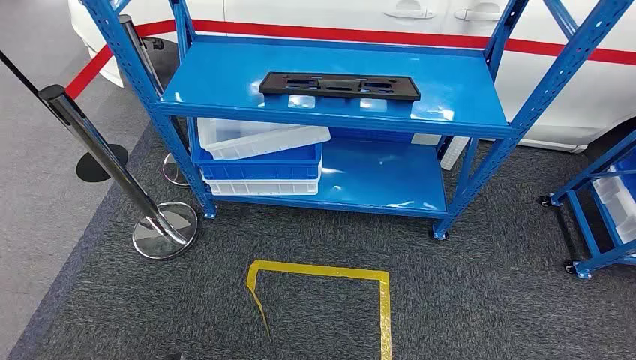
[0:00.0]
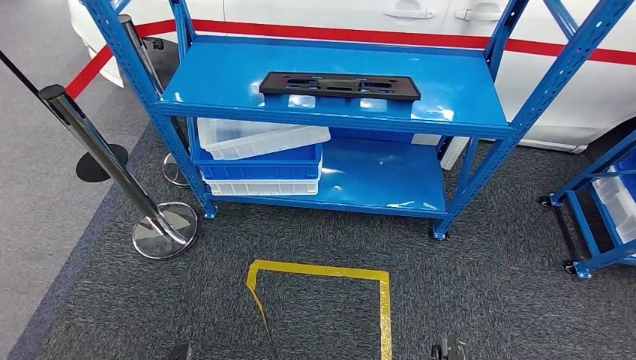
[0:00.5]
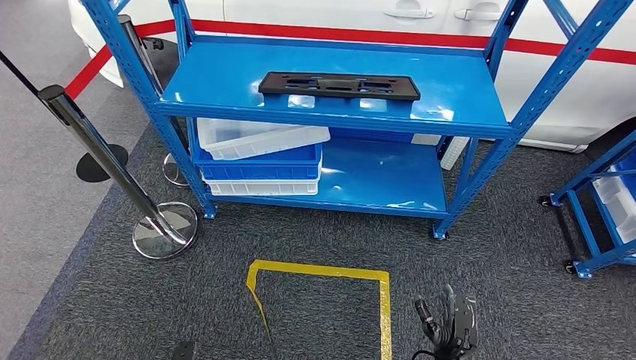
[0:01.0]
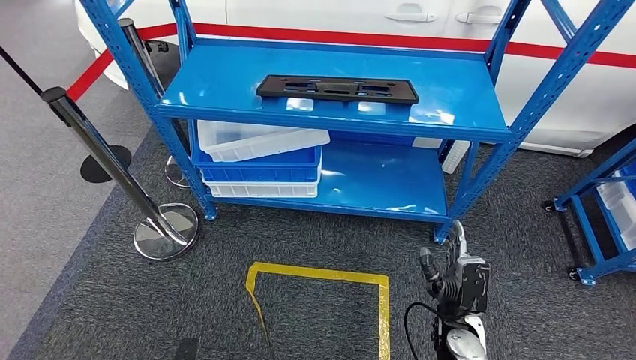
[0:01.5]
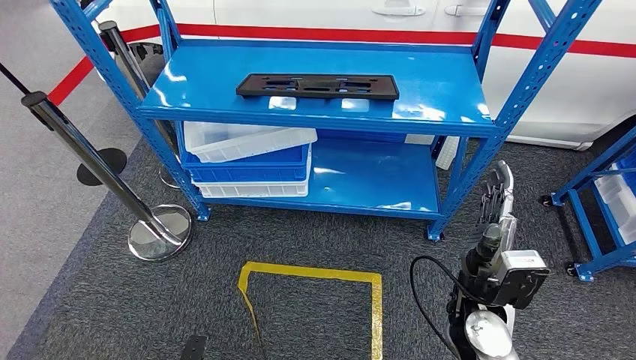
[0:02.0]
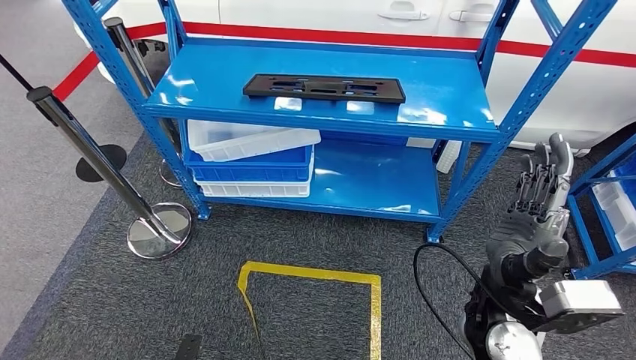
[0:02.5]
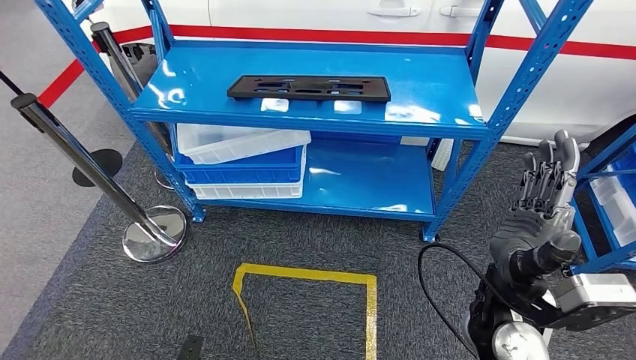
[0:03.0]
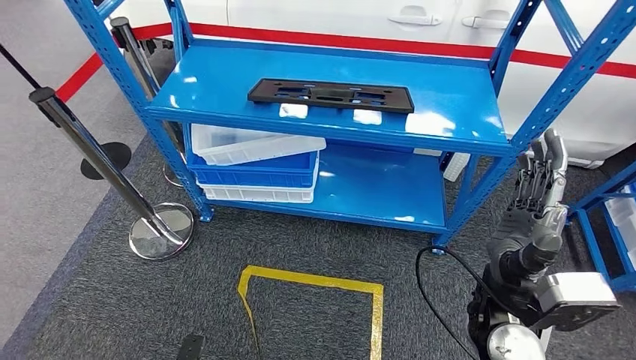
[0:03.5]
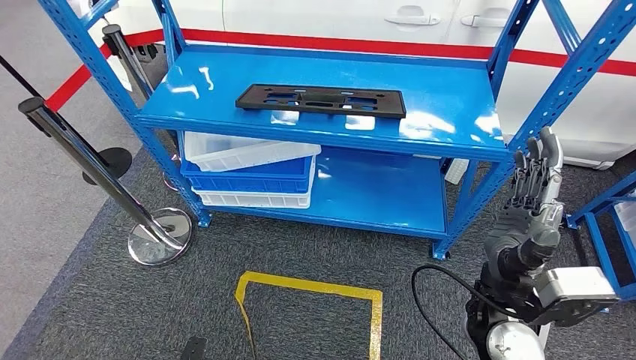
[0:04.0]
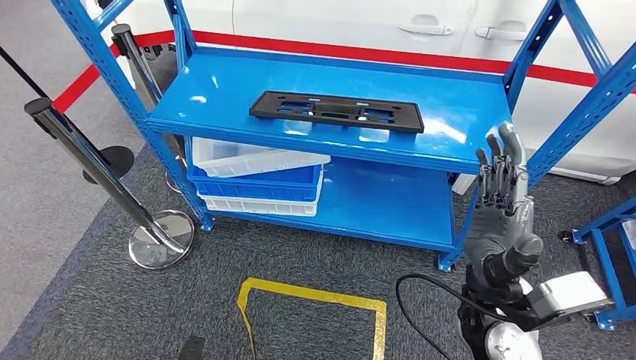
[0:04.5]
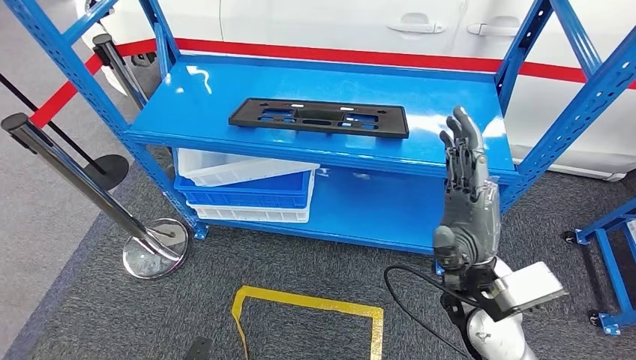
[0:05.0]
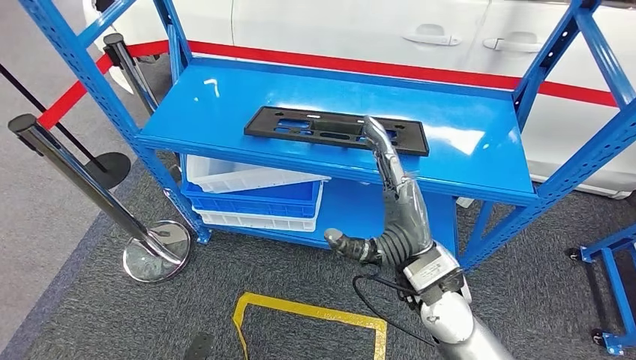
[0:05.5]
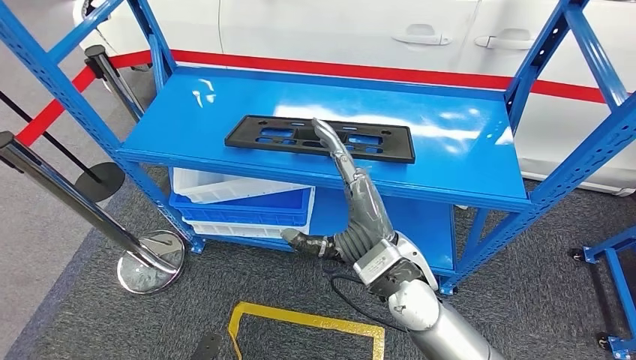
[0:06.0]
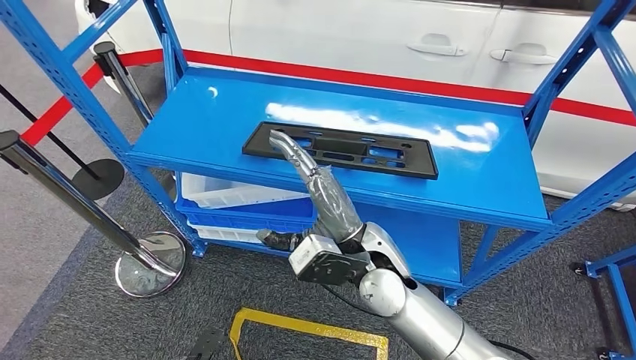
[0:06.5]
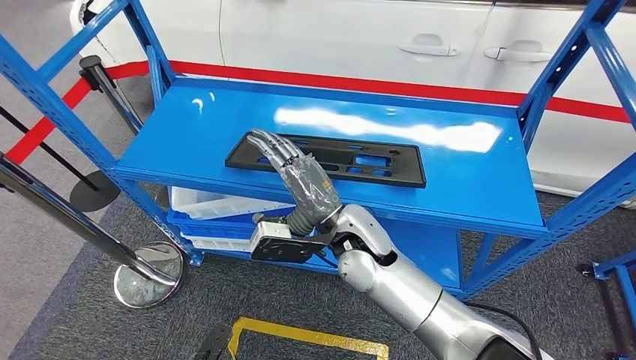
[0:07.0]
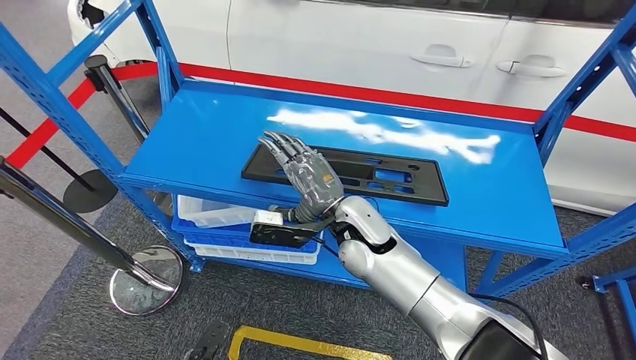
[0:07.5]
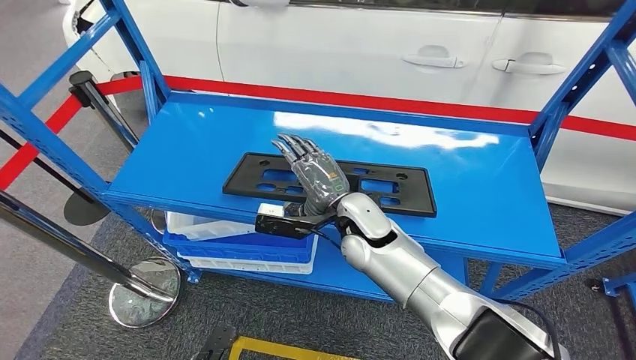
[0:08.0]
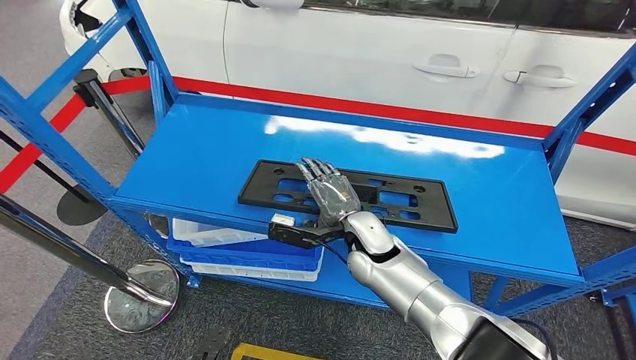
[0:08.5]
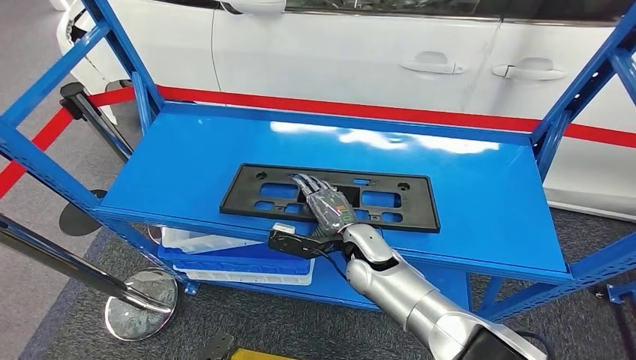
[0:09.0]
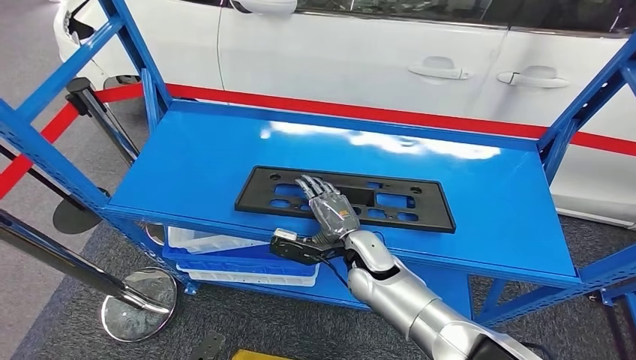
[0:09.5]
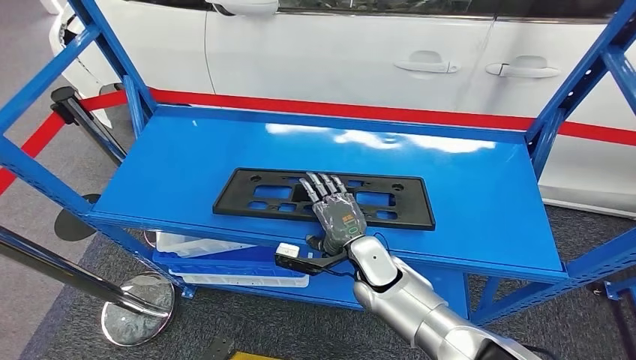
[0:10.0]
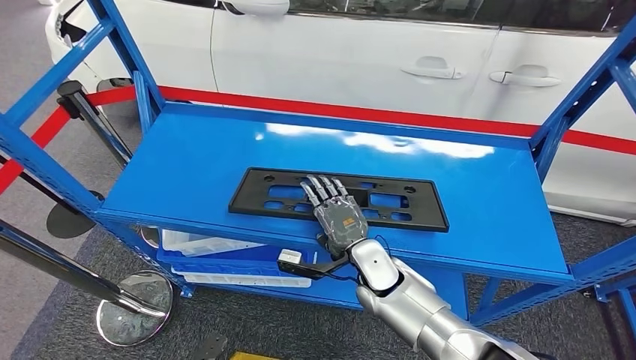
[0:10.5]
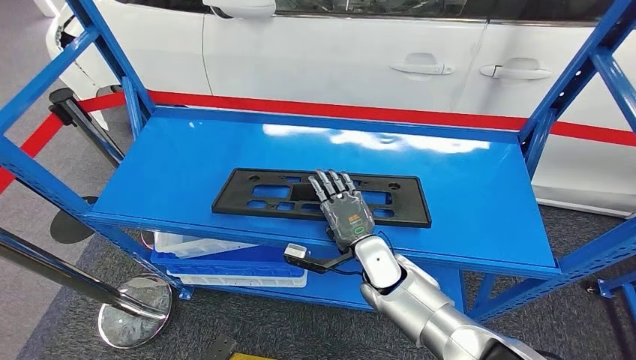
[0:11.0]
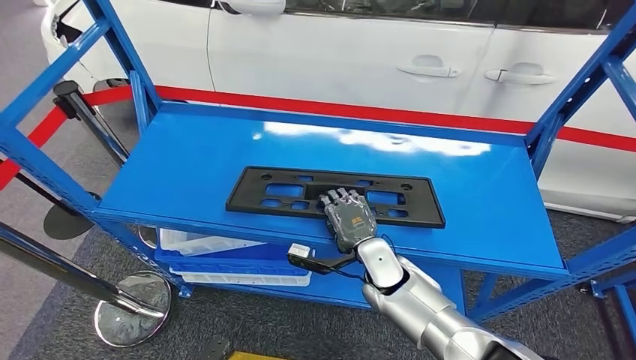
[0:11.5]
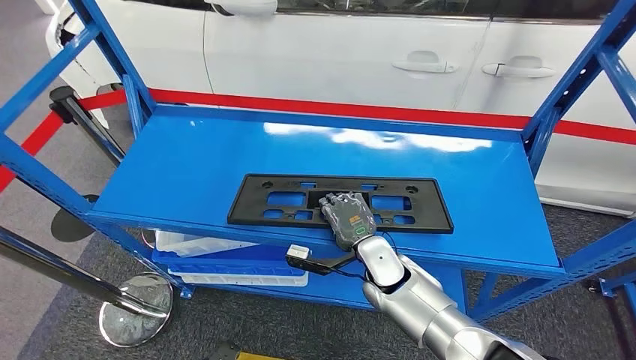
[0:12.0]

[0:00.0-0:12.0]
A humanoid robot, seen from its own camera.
0:10.0 to 0:12.0: The hands make only small movements.

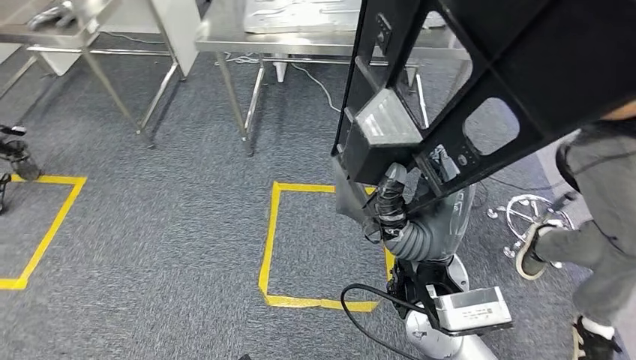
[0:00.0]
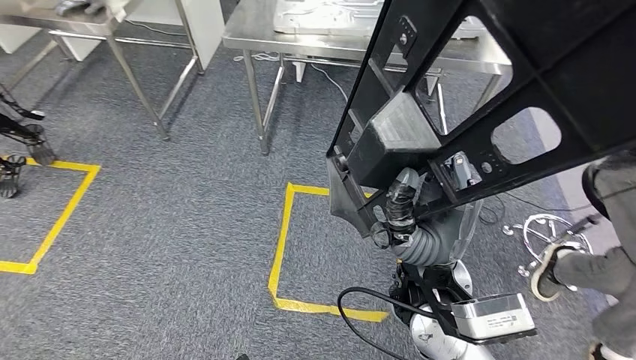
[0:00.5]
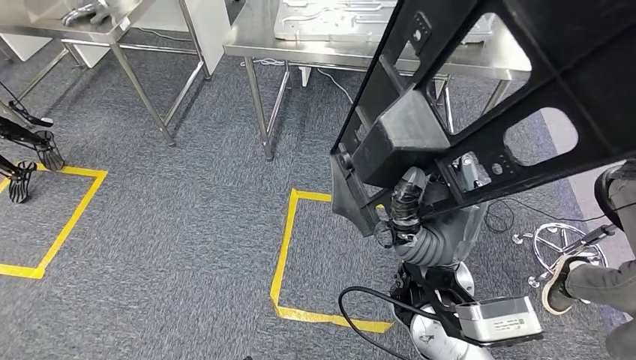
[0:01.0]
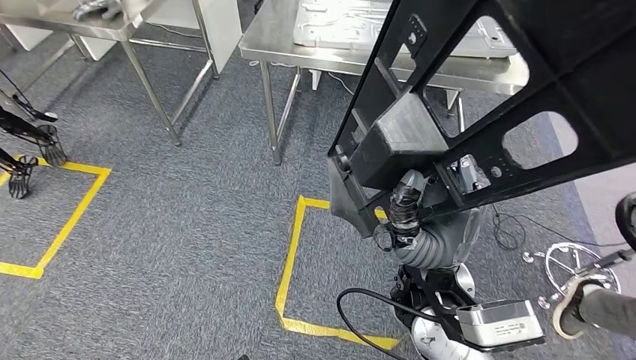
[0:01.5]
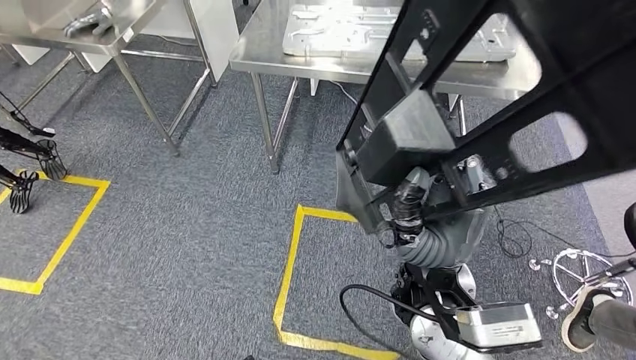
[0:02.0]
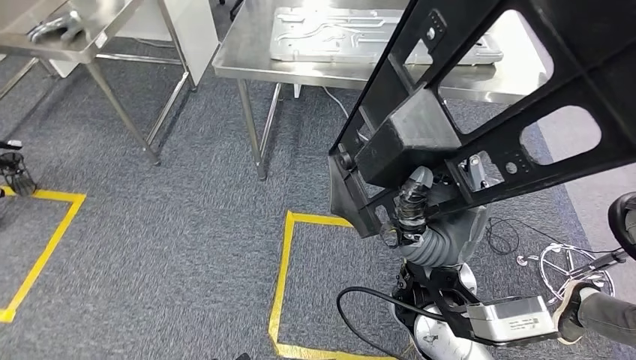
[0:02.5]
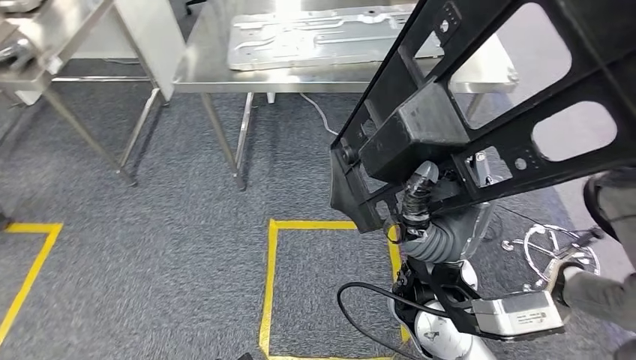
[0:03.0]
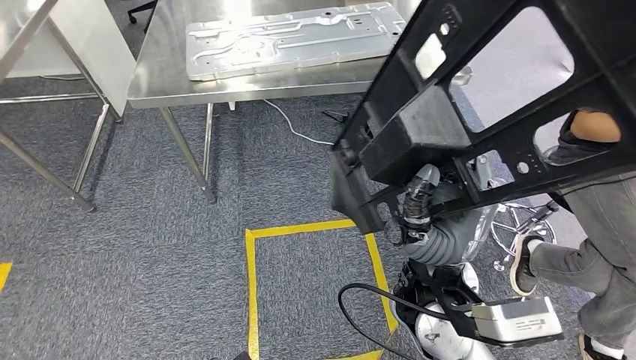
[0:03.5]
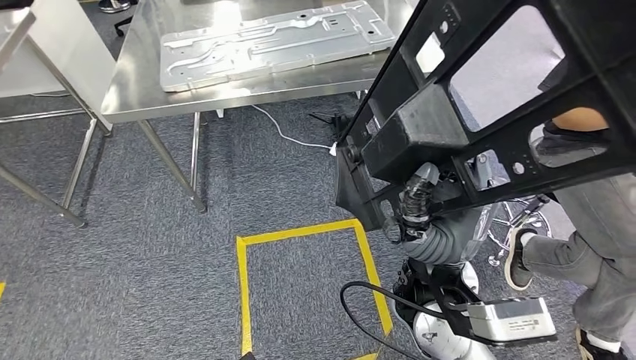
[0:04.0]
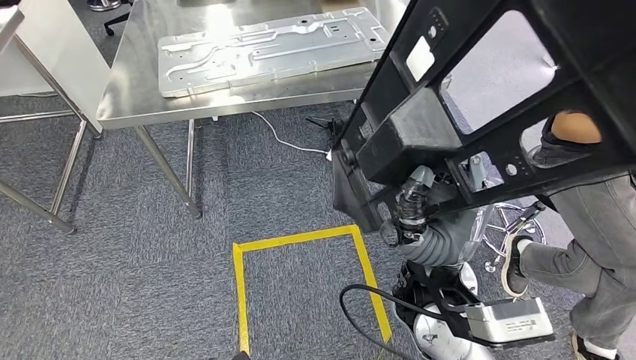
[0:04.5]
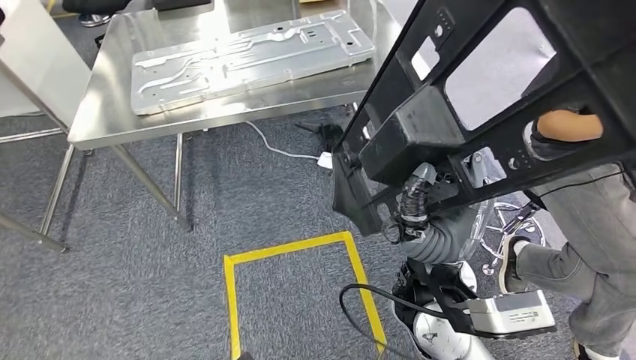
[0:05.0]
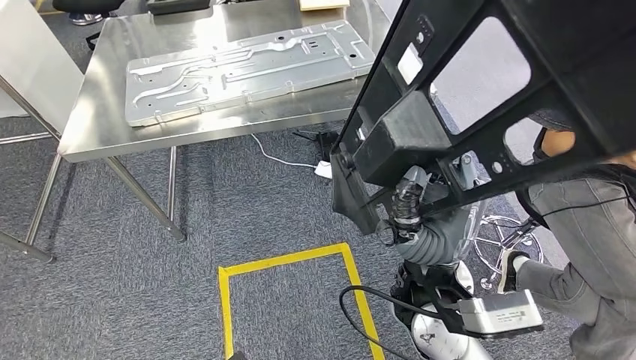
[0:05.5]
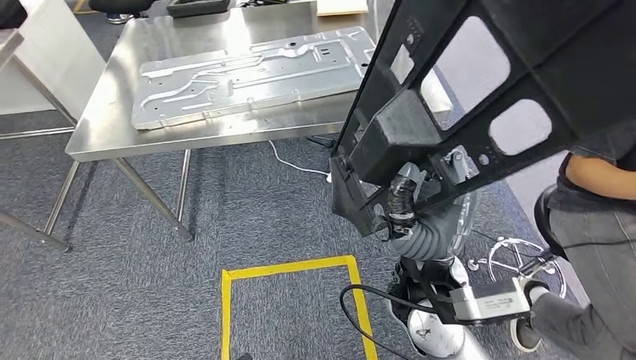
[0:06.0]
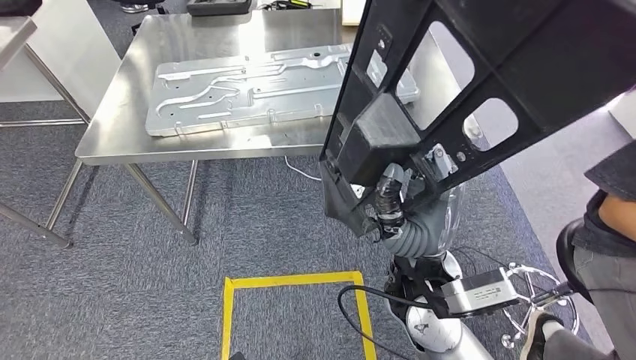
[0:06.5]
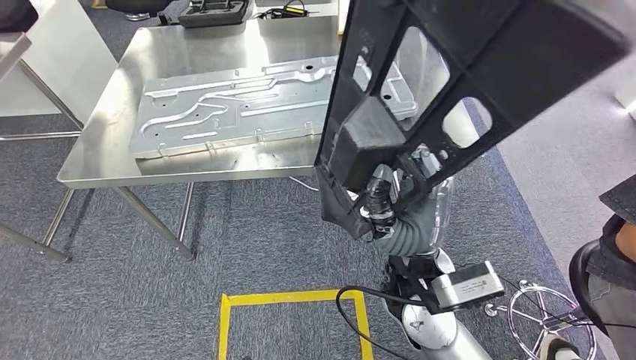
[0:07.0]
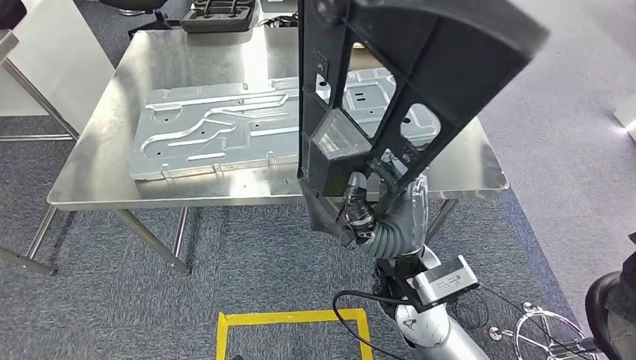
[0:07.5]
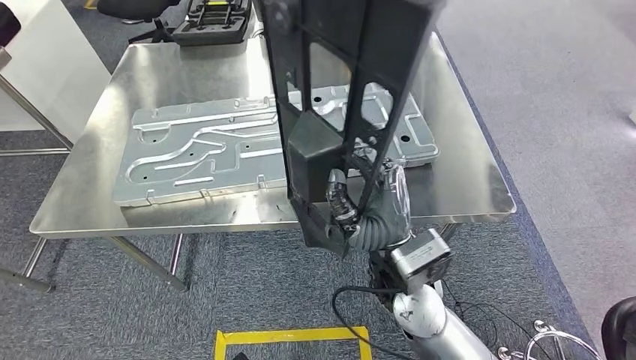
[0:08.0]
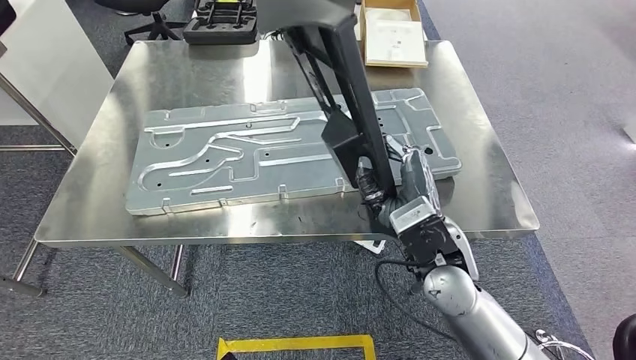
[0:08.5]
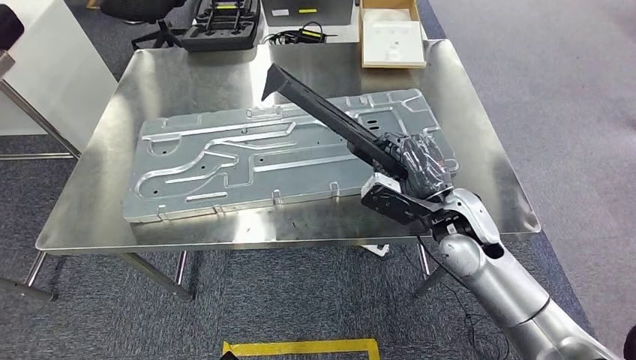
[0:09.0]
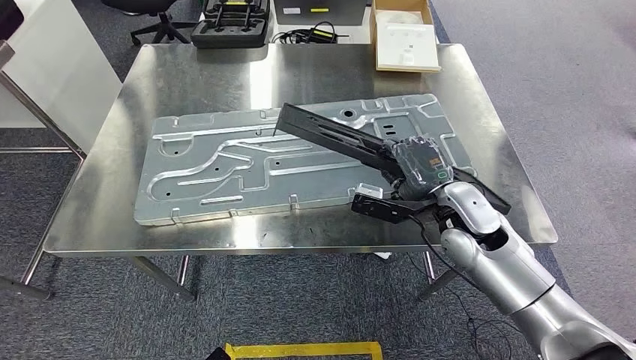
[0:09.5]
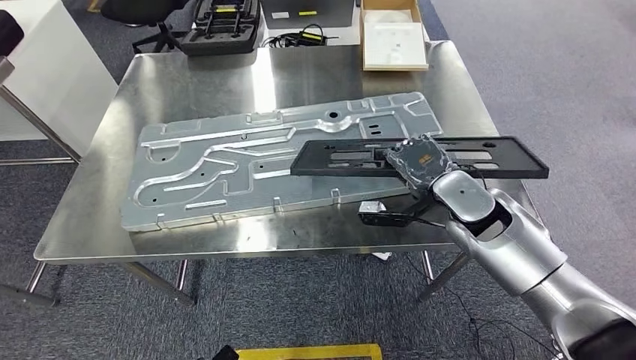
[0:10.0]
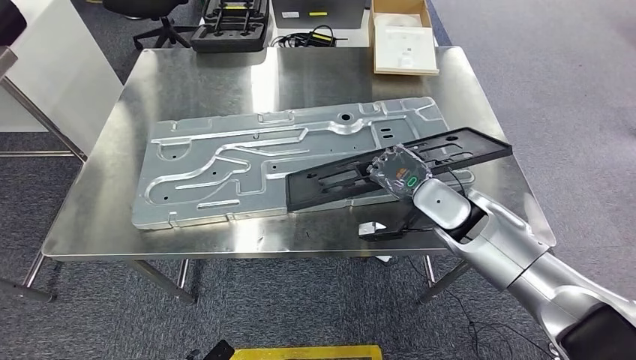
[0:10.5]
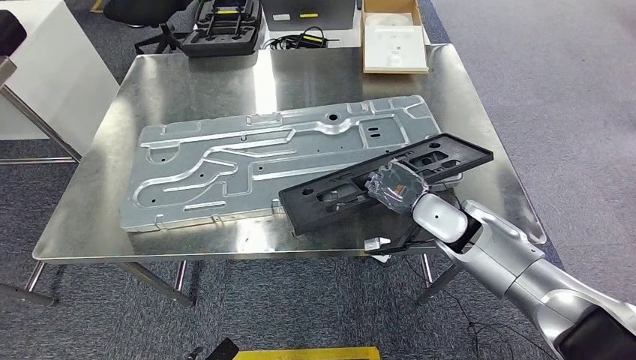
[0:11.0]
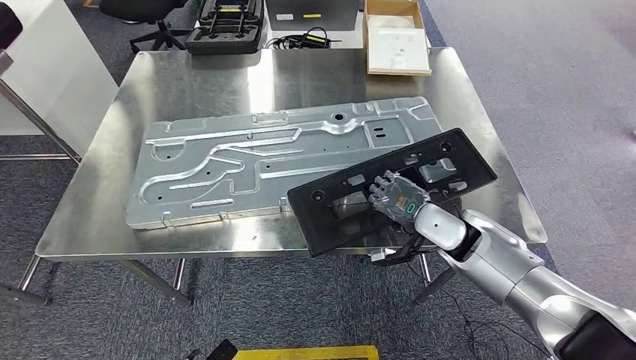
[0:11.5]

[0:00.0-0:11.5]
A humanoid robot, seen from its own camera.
Step, 0:00.0 to 0:06.5: Move the large material to the workbench.
